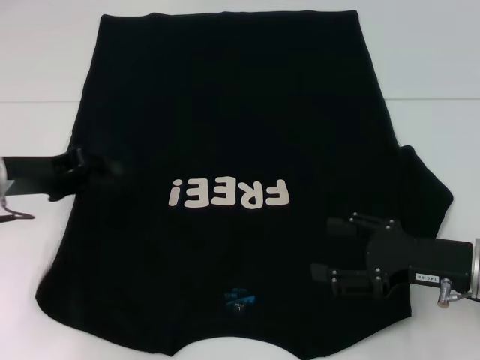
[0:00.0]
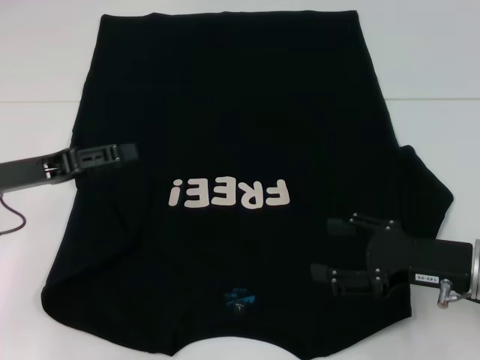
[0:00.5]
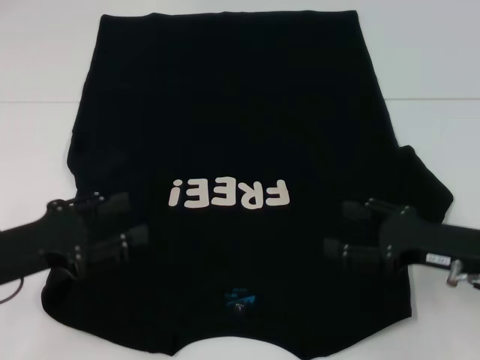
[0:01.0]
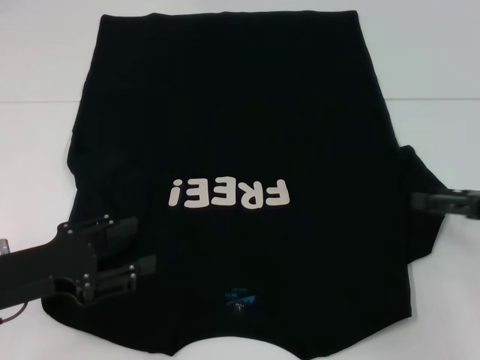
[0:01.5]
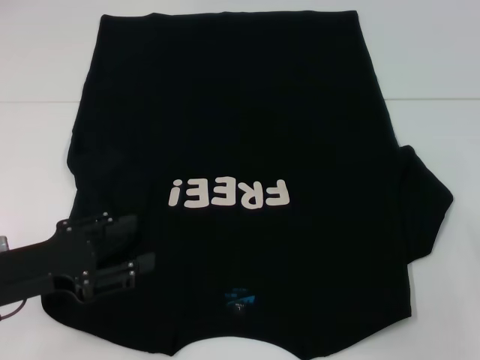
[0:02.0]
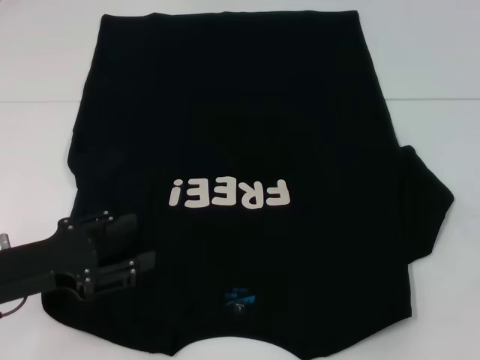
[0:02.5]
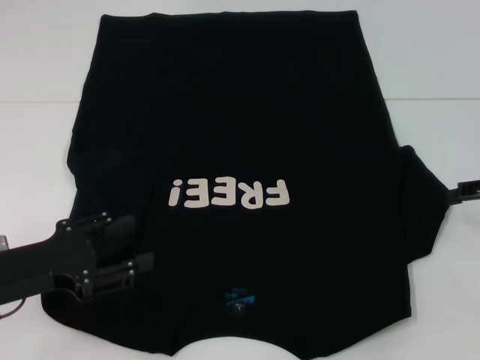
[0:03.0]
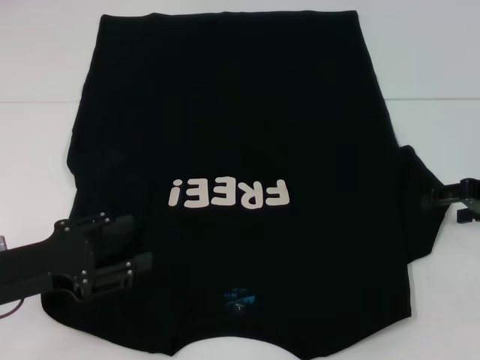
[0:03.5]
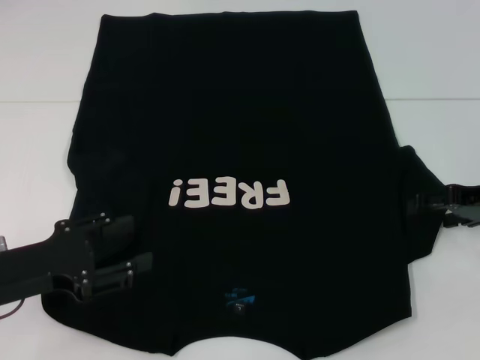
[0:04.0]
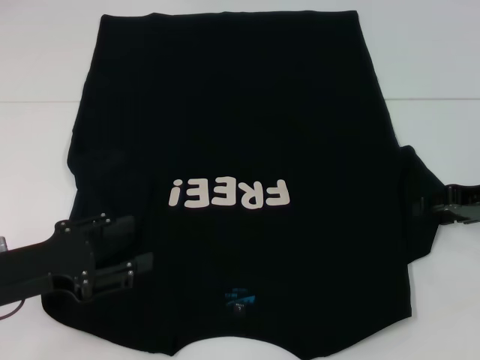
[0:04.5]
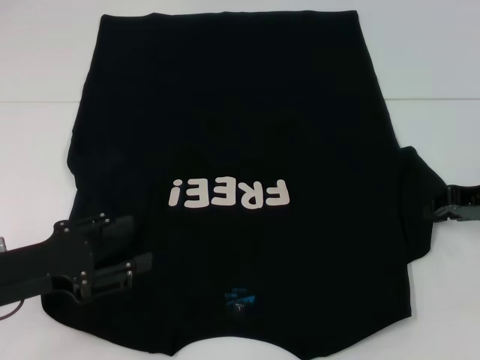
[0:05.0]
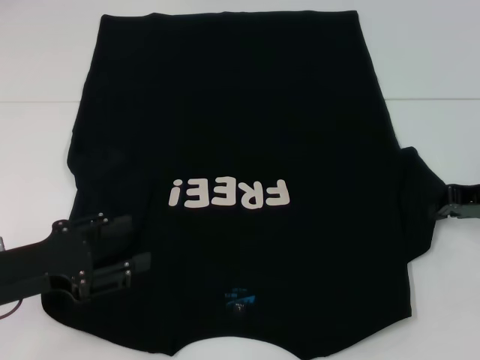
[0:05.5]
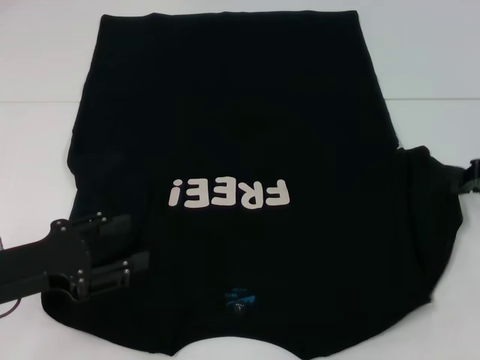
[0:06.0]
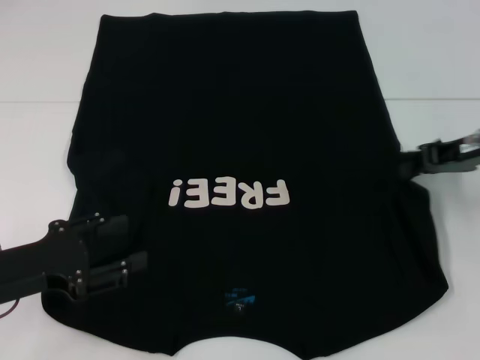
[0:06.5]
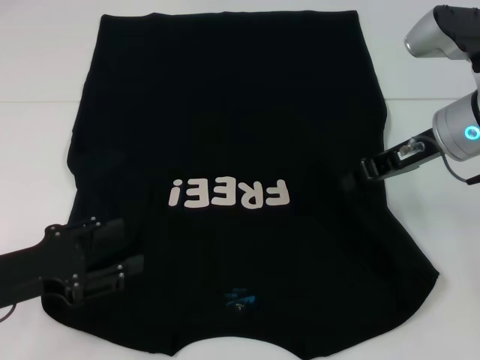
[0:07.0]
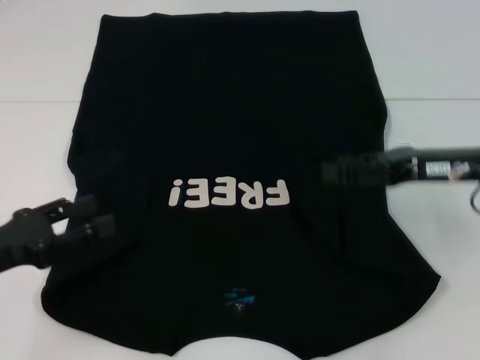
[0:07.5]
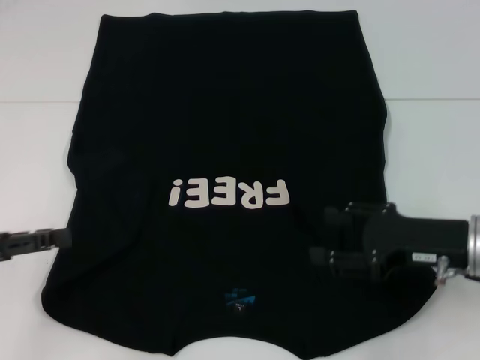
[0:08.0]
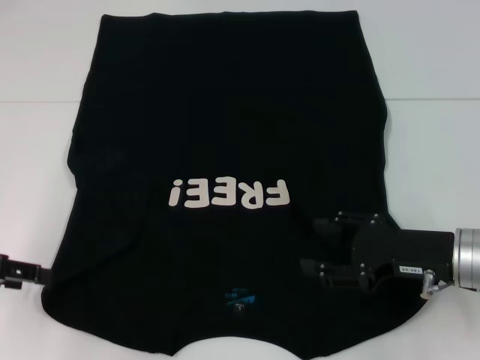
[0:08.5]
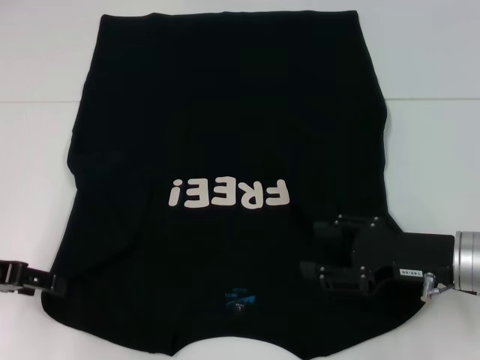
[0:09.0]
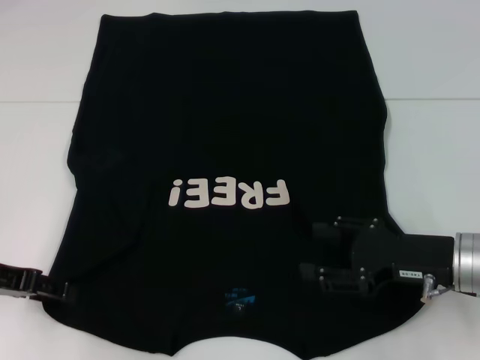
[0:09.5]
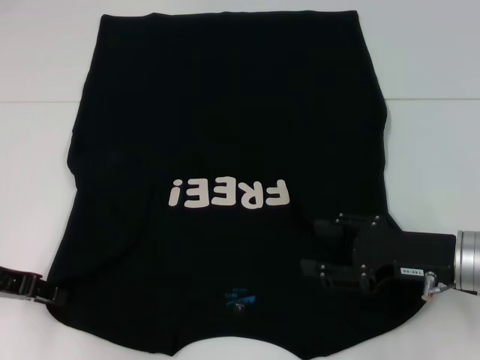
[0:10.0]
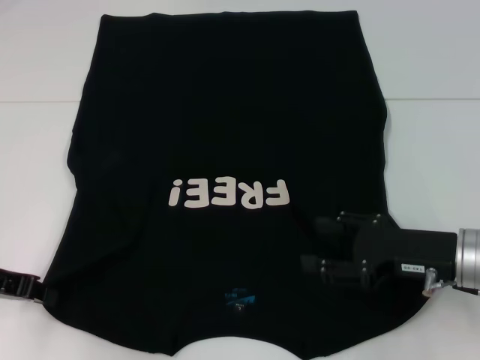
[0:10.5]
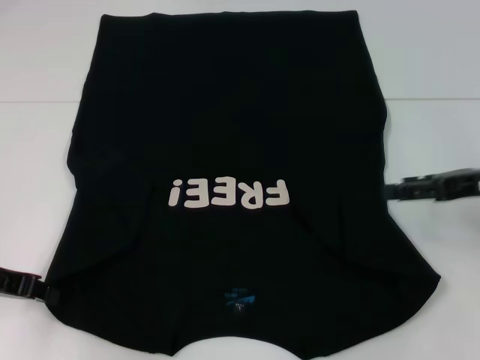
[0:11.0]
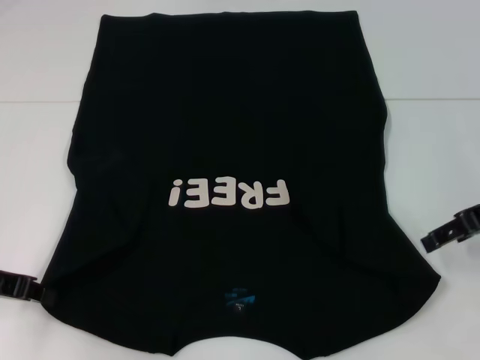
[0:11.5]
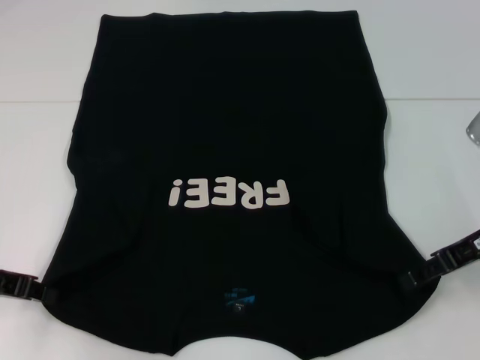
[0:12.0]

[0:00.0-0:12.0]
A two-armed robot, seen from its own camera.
Step, 0:01.0 to 0:07.0: Fold the bottom right sleeve with your right hand.
Step, 0:07.5 to 0:10.5: Grab the bottom left corner with your left hand.
0:00.0 to 0:02.0: The right gripper goes about 15 cm to the right and upward. The left gripper goes approximately 10 cm backward, and opens its fingers.
0:02.0 to 0:04.0: The right gripper moves to the left and forward, roughly 10 cm.
0:04.0 to 0:06.0: The right gripper closes.
0:06.0 to 0:08.0: The left gripper goes approximately 5 cm to the left, while the right gripper is displaced to the left, backward and downward by roughly 15 cm, and opens its fingers.
0:08.0 to 0:10.0: The left gripper changes place by approximately 5 cm.
0:10.0 to 0:12.0: The right gripper goes roughly 5 cm upward.

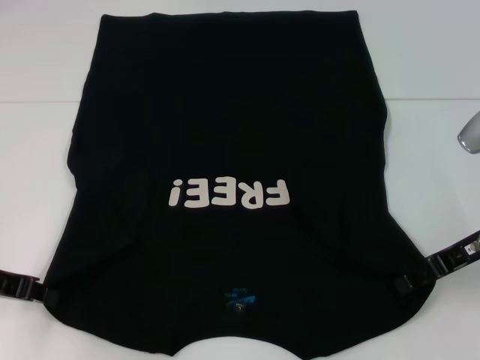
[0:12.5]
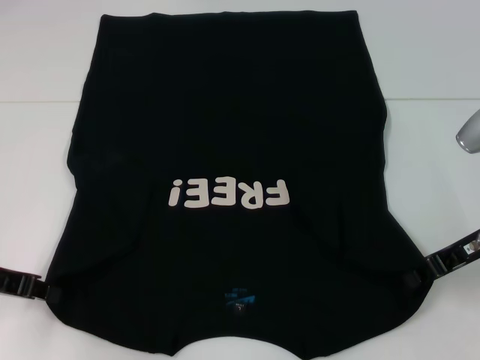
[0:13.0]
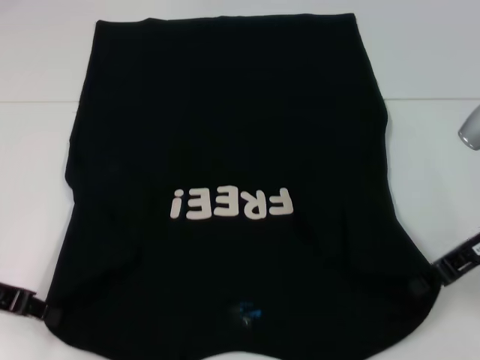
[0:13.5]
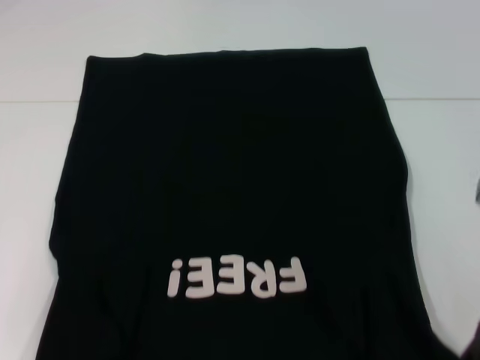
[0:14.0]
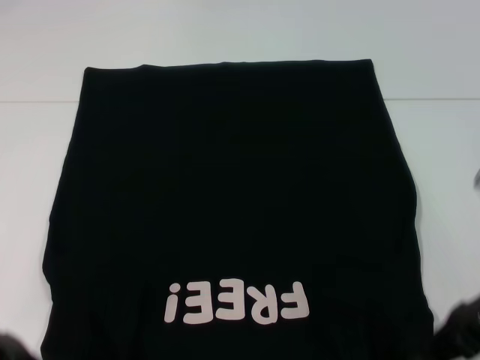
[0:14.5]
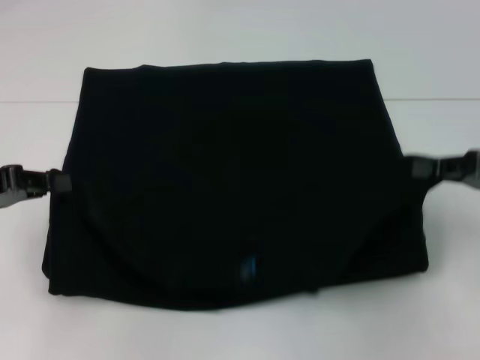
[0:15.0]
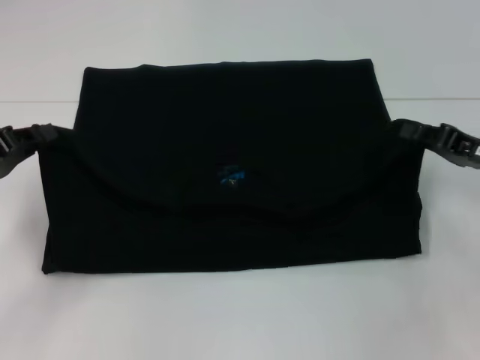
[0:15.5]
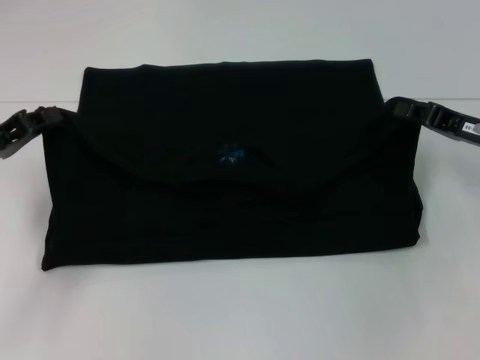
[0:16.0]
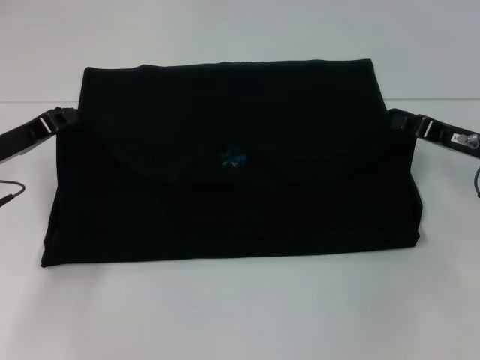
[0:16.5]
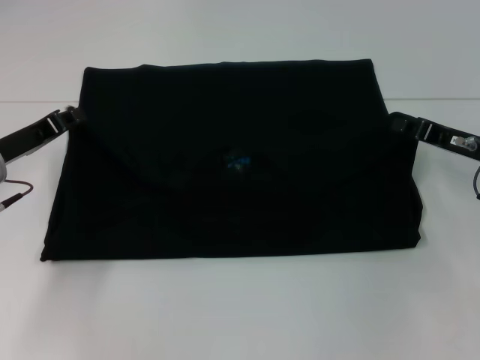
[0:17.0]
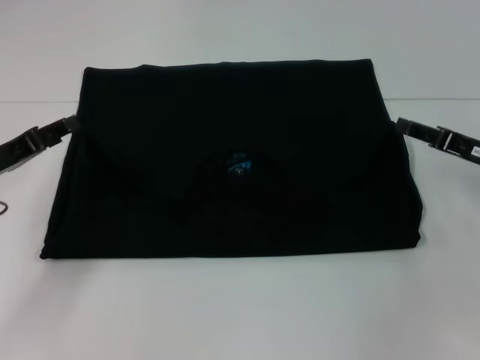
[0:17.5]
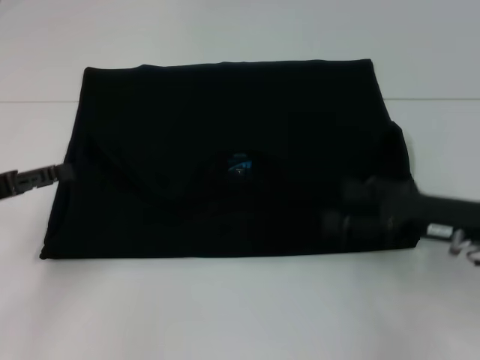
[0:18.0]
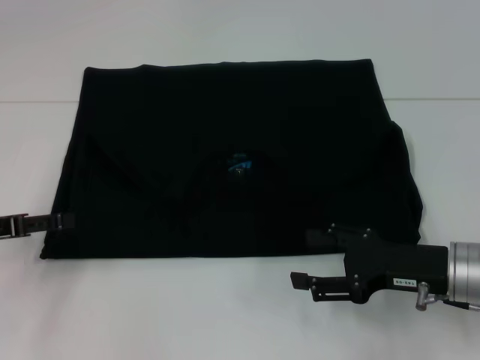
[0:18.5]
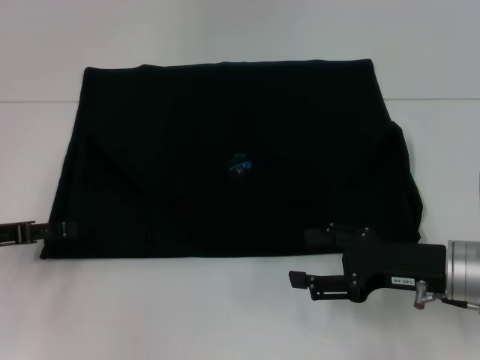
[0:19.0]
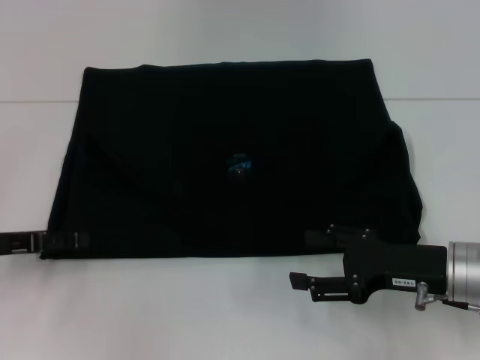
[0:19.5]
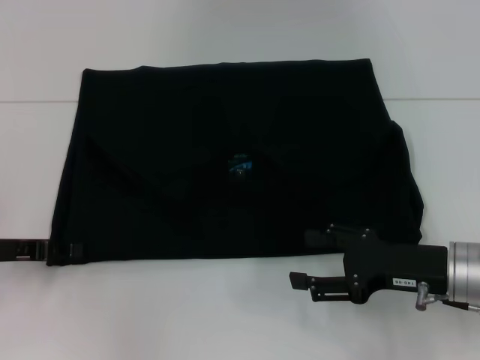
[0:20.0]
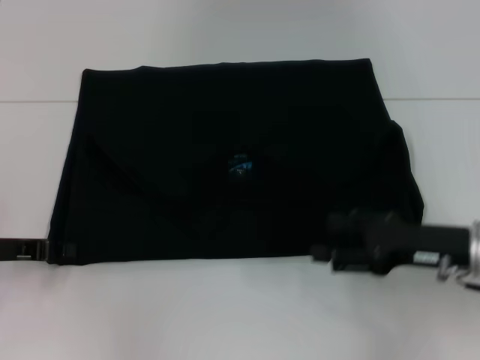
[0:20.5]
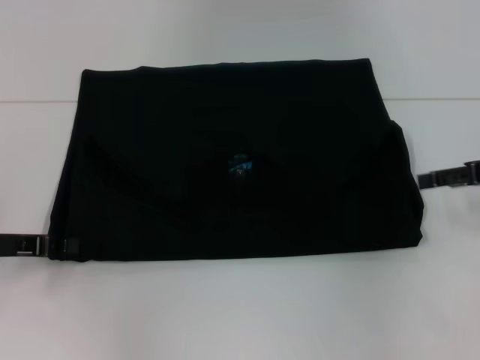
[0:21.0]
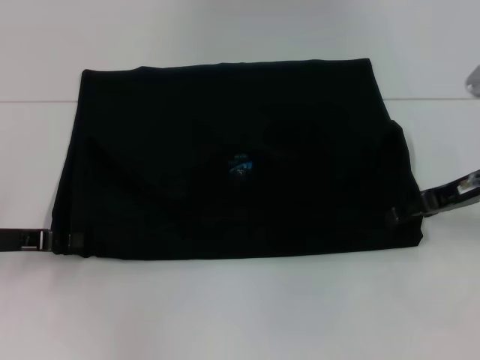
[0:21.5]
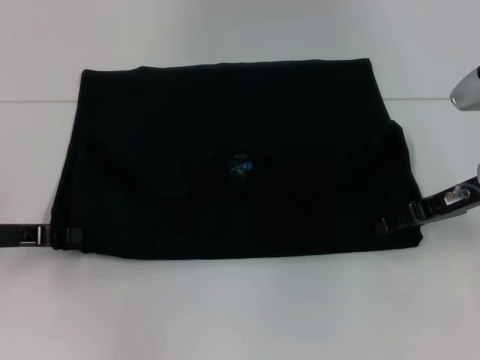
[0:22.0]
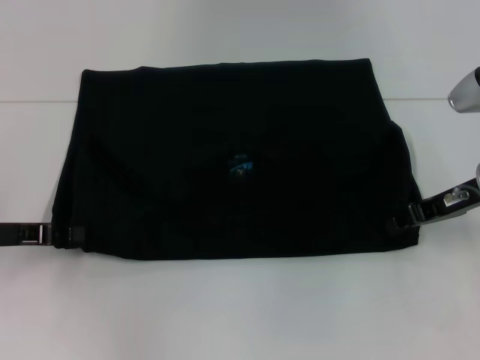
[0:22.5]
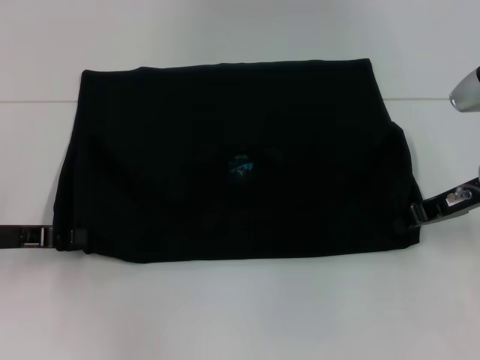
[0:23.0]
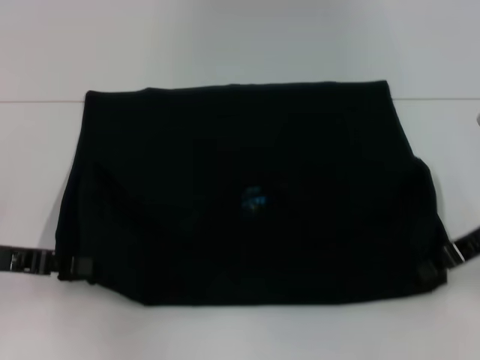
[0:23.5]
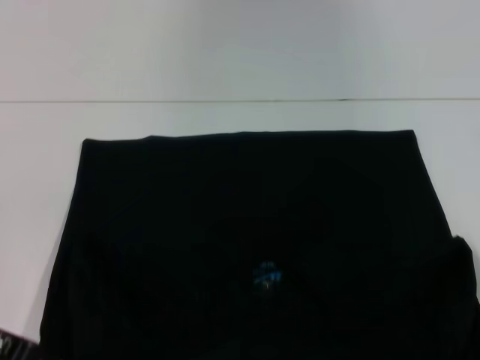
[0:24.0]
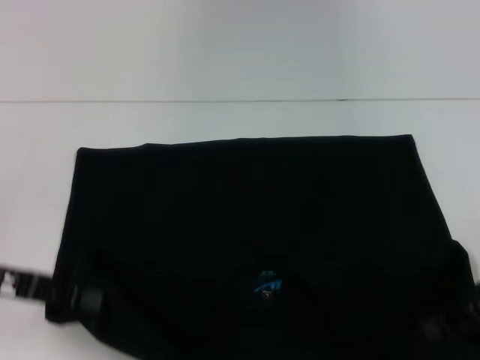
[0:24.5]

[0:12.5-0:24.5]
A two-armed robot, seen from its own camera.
Step, 0:13.5 to 0:17.0: Fold the clothes with your left hand.
Step, 0:13.5 to 0:17.0: Fold the clothes with your right hand.
Step, 0:17.5 to 0:24.0: Pull the clothes with your left hand.
Step, 0:17.5 to 0:24.0: Pull the clothes with your right hand.
0:12.5 to 0:14.5: The right gripper closes.
0:14.5 to 0:16.5: The grippers both shift forward by some 10 cm.
0:16.5 to 0:18.5: The right gripper moves backward and to the left, about 10 cm, and opens up, while the left gripper moves backward, approximately 5 cm, and opens up.
0:18.5 to 0:20.5: The left gripper closes.
0:20.5 to 0:22.5: The right gripper is displaced forward by roughly 10 cm, and closes.
0:22.5 to 0:24.5: The right gripper heads backward, covering some 5 cm, and closes. The left gripper moves approximately 5 cm.

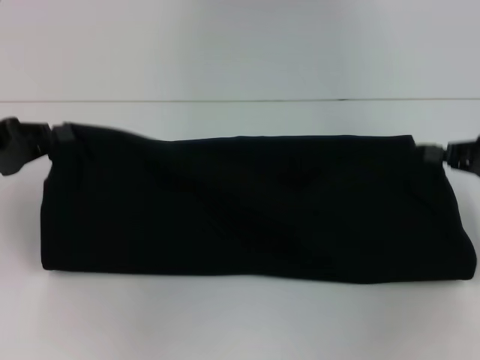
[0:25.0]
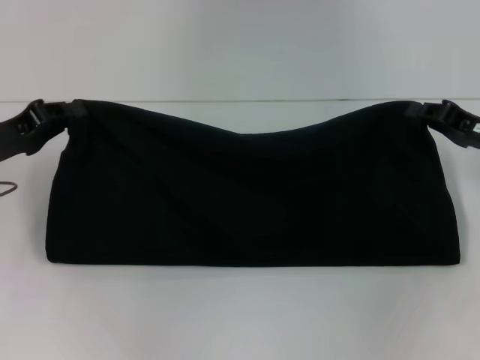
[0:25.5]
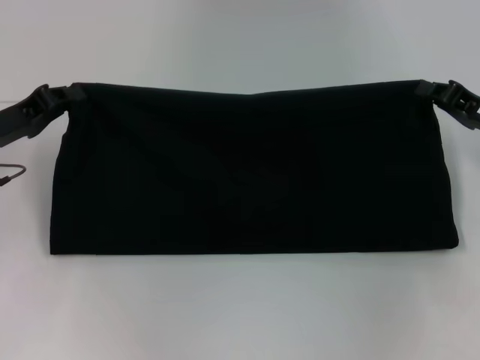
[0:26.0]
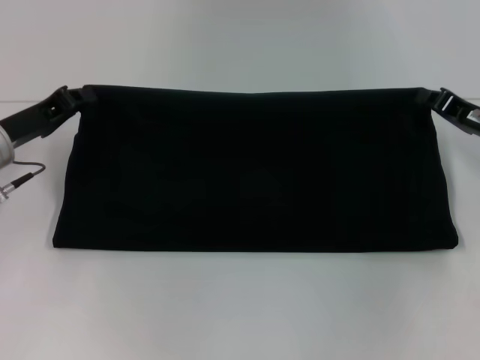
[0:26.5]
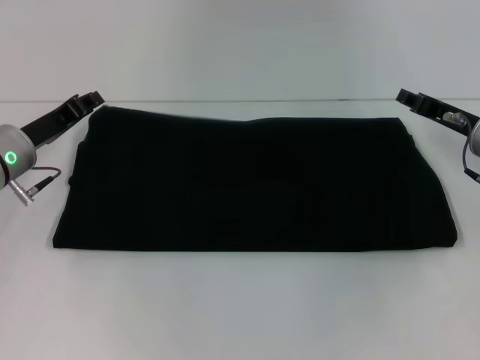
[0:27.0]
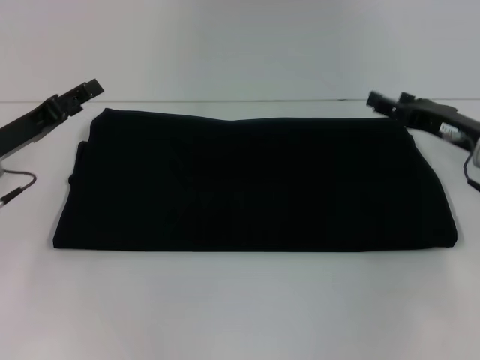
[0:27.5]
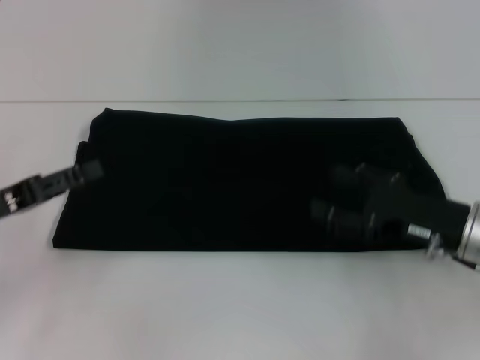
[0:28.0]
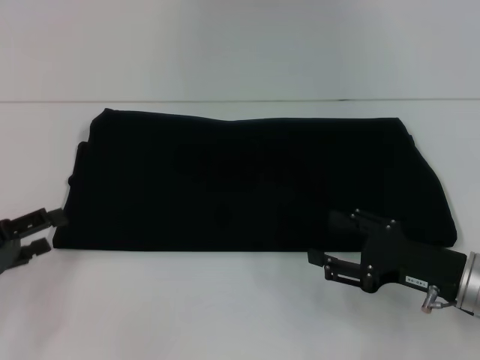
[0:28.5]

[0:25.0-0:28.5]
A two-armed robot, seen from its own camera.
Step, 0:25.0 to 0:27.0: Fold the clothes with your right hand.
0:25.0 to 0:27.0: The right gripper heads to the left and forward, covering roughly 10 cm. The left gripper goes approximately 10 cm to the right, forward and downward.
0:27.0 to 0:28.5: The left gripper goes about 15 cm backward and to the left, and opens its fingers. The right gripper shifts approximately 15 cm backward, and opens its fingers.
